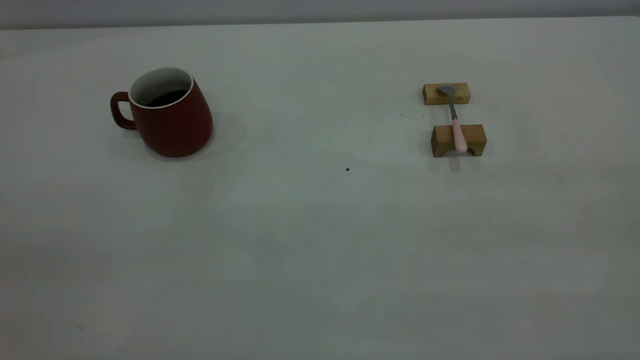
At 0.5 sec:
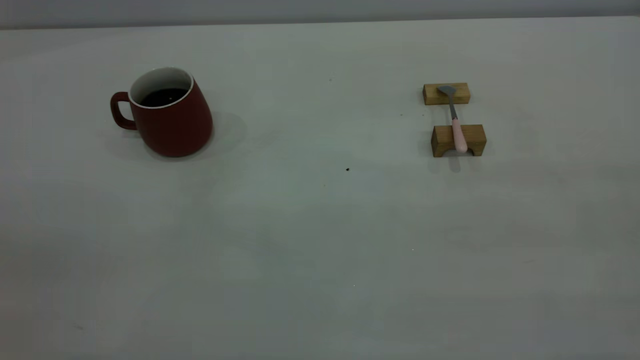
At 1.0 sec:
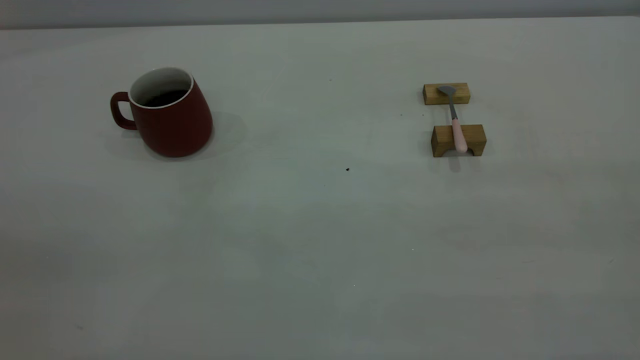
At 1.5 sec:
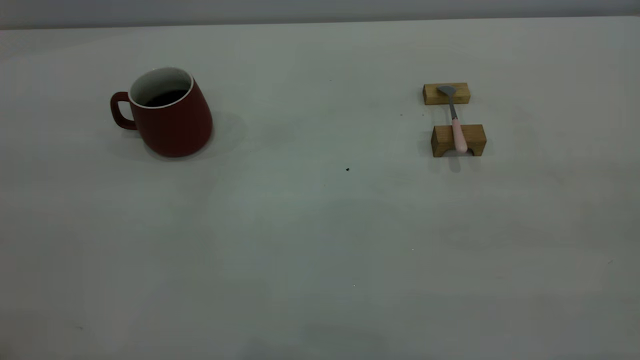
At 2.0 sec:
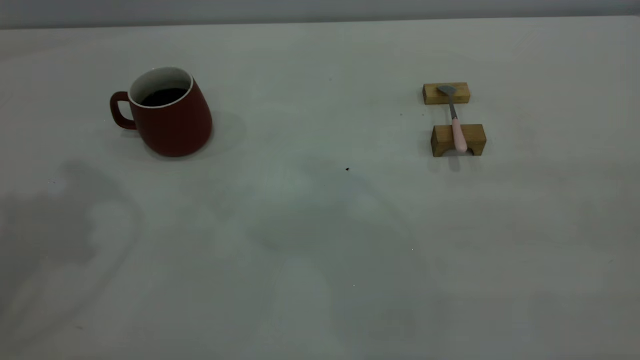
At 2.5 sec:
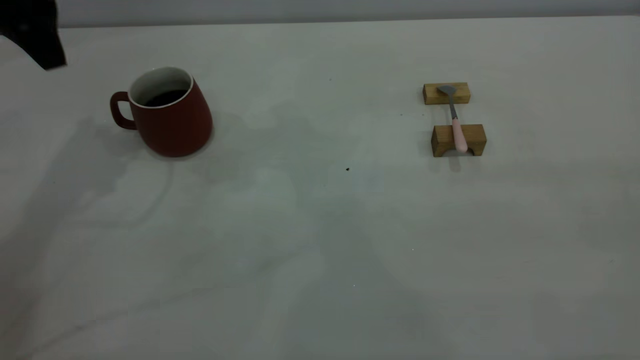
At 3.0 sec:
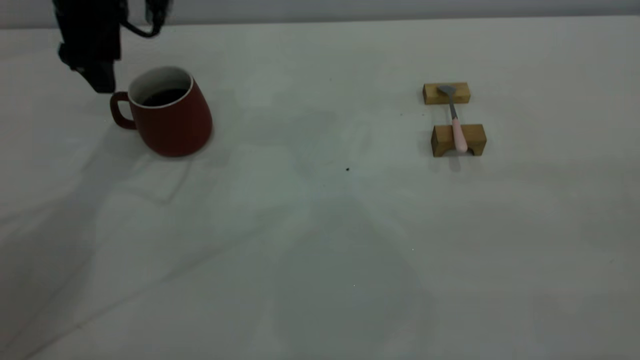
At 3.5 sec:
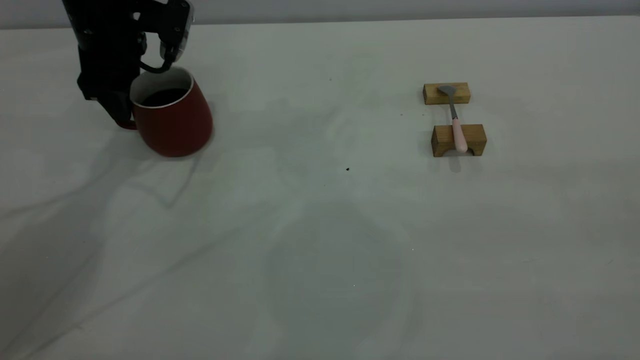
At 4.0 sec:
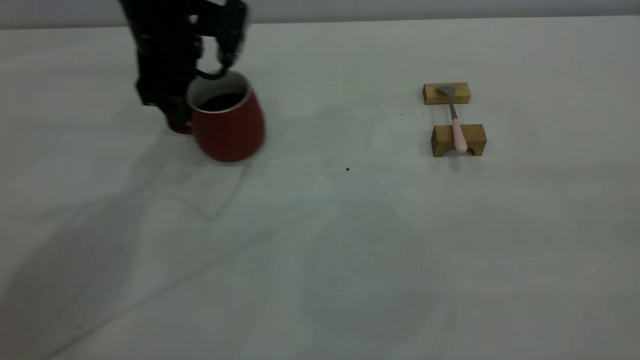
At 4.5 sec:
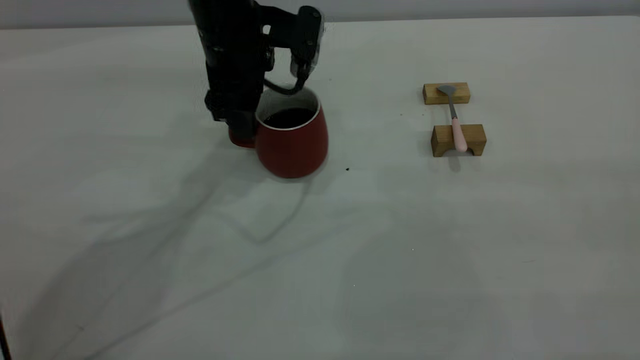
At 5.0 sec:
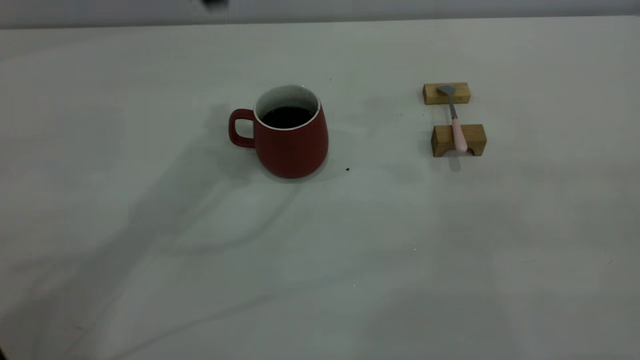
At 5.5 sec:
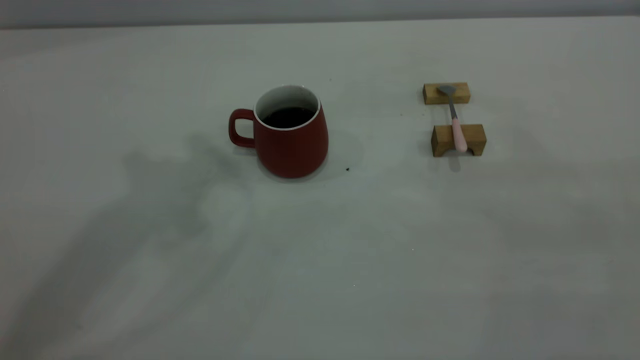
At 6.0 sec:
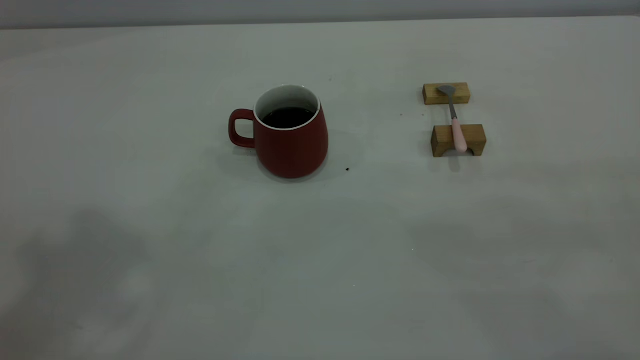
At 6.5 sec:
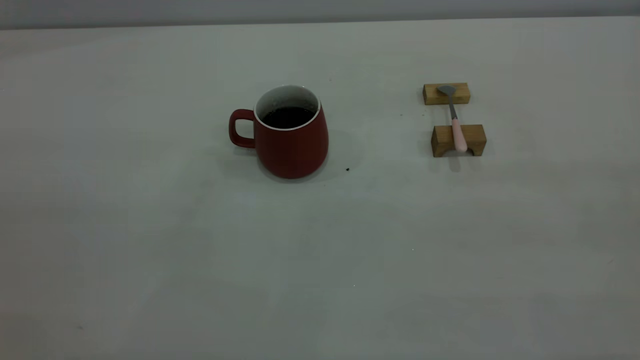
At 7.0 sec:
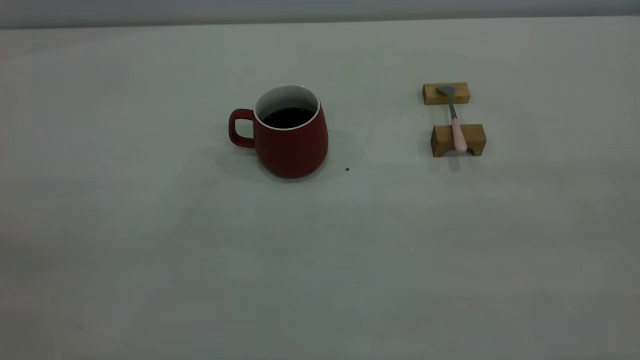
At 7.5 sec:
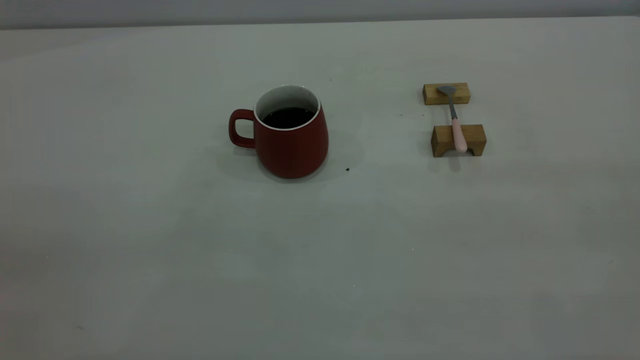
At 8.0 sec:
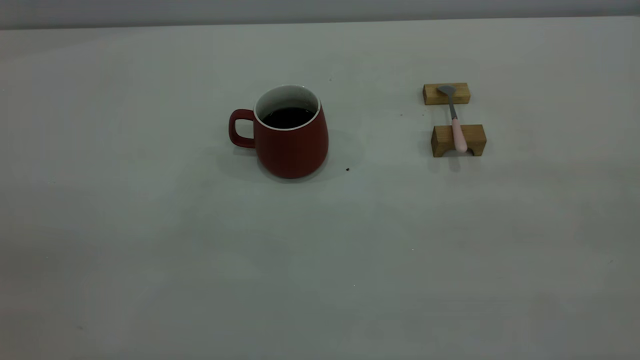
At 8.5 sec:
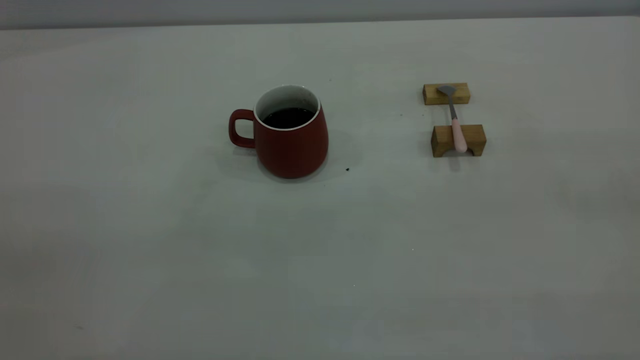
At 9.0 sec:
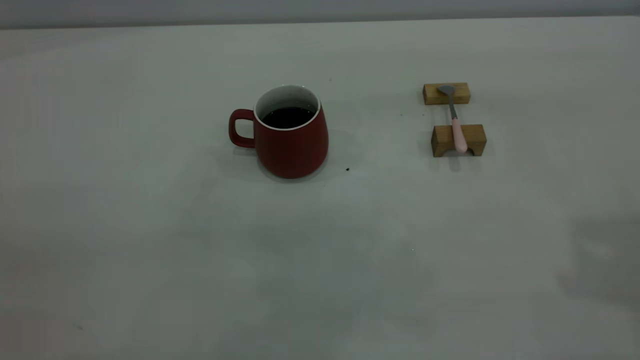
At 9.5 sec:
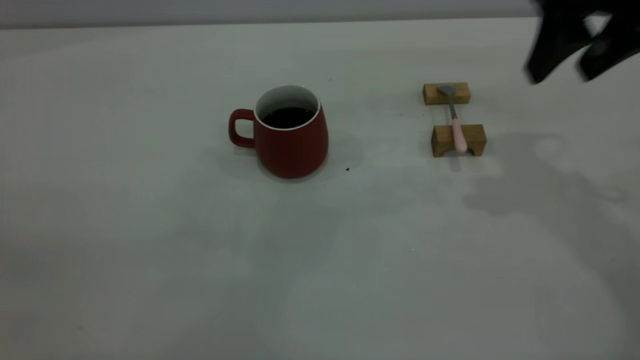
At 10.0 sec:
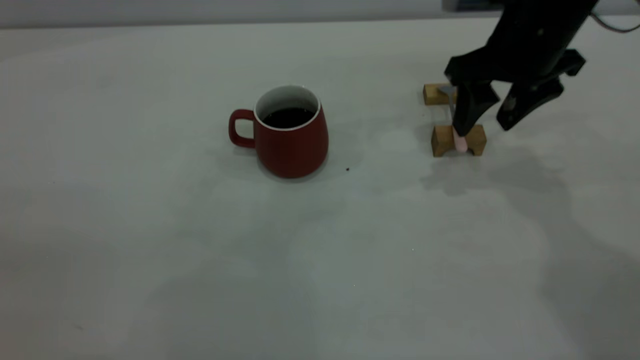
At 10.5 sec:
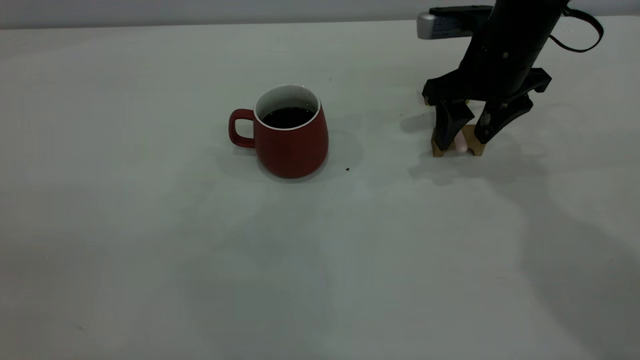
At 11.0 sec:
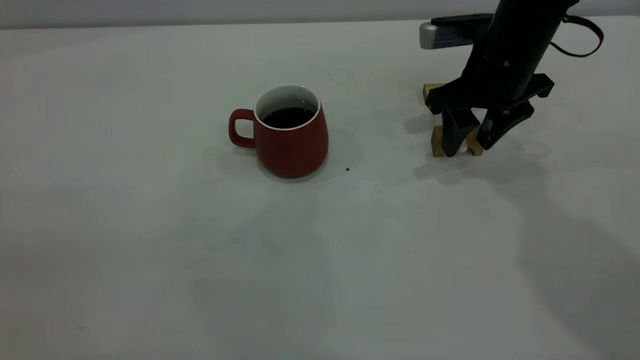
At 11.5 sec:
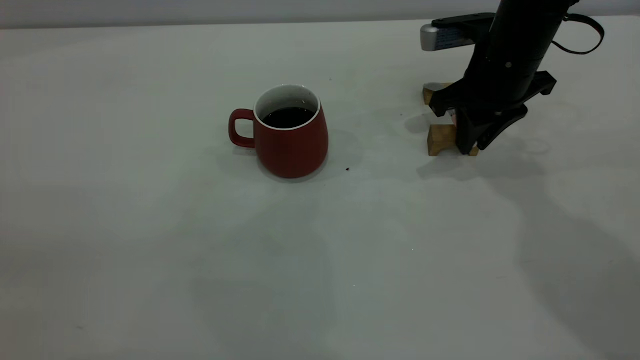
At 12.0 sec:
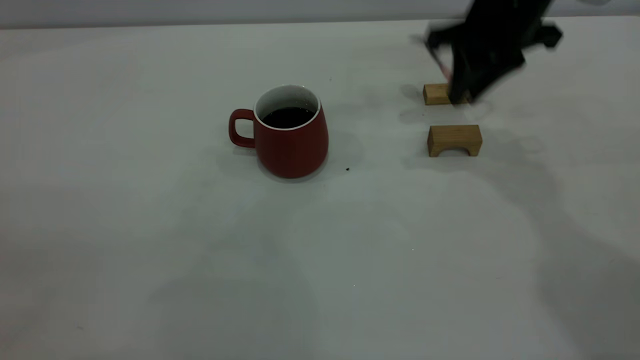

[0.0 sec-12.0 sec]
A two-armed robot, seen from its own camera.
Step, 0.0 sec to 4.5 sec: Move the cup with coffee to the center of view.
Step, 5.0 sec to 11.5 sec: Pick up the spoon.
2.0 sec to 4.0 sec: The left gripper moves downward, forward and to the right, some 30 cm.
4.0 sec to 6.0 sec: The left gripper shifts some 50 cm upward and backward, and closes.
8.0 sec to 10.0 sec: The right gripper shifts approximately 40 cm forward and downward.
10.0 sec to 12.0 sec: The right gripper moves about 5 cm, and closes its fingers.

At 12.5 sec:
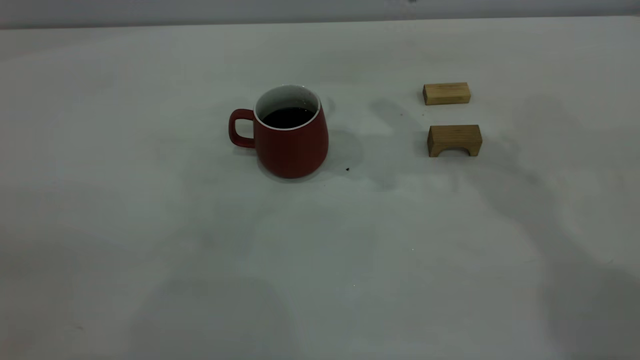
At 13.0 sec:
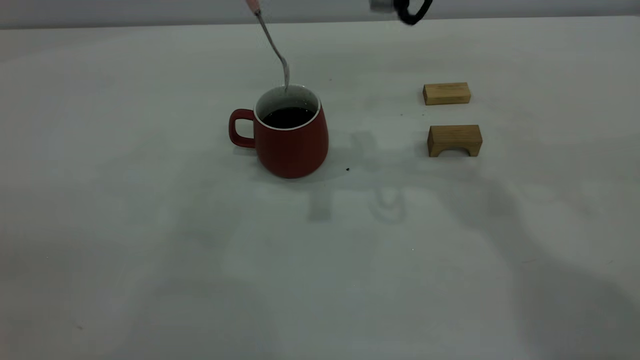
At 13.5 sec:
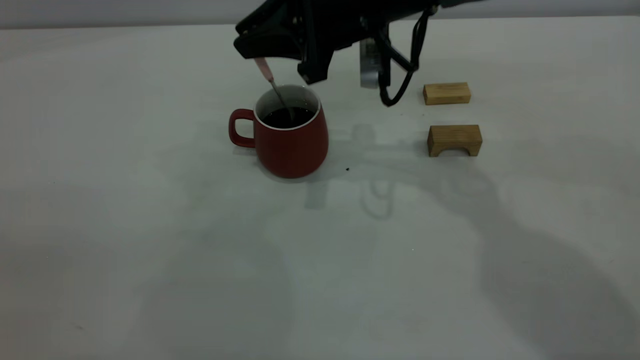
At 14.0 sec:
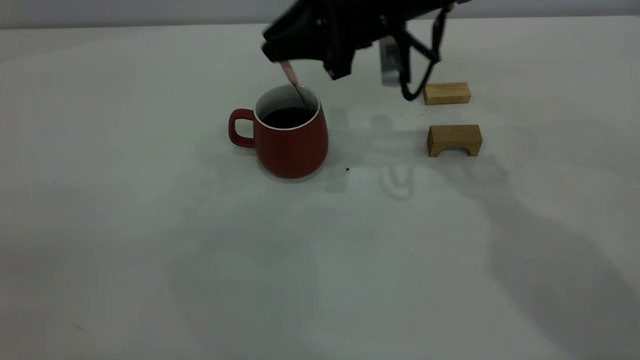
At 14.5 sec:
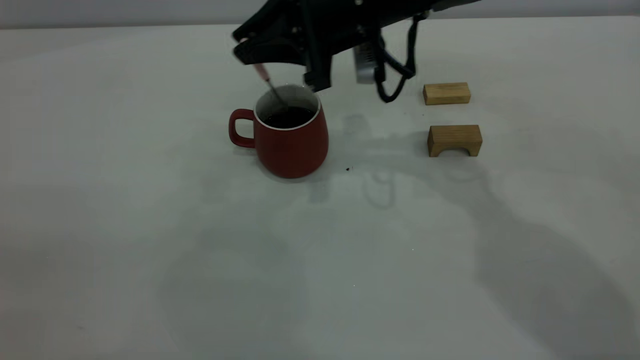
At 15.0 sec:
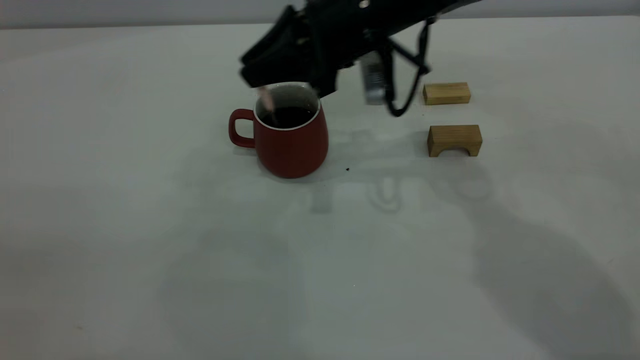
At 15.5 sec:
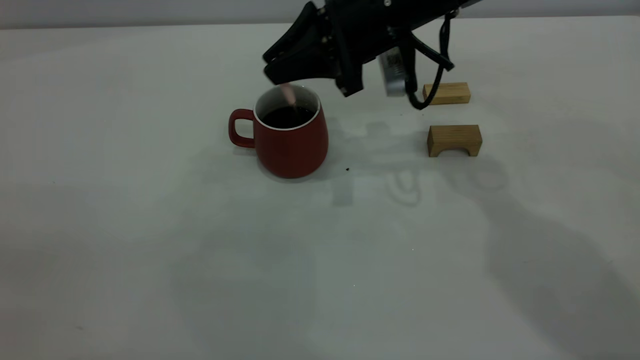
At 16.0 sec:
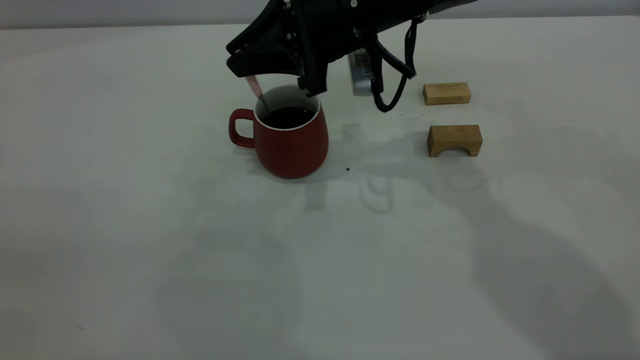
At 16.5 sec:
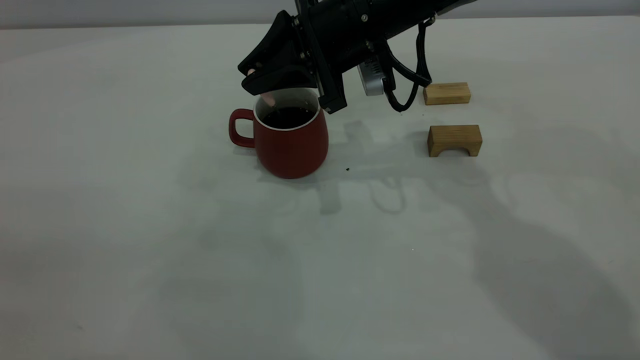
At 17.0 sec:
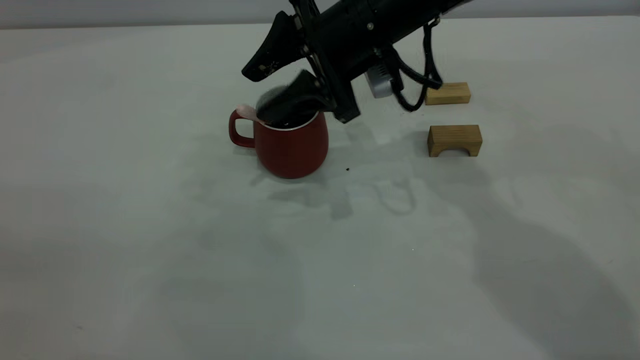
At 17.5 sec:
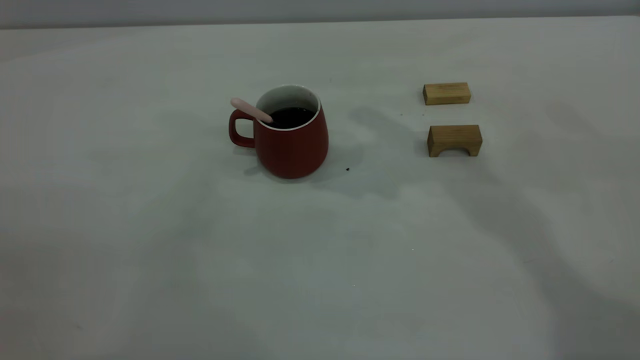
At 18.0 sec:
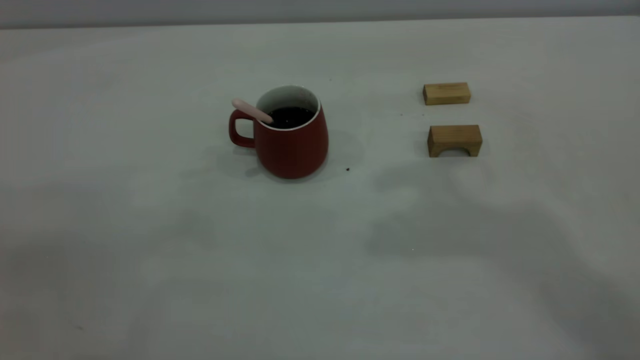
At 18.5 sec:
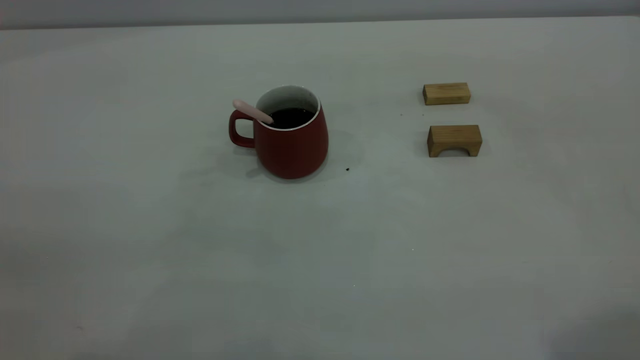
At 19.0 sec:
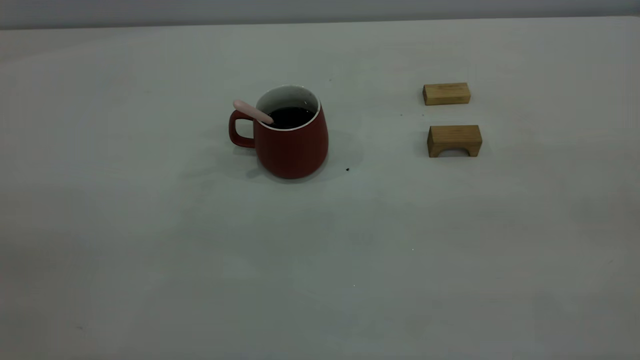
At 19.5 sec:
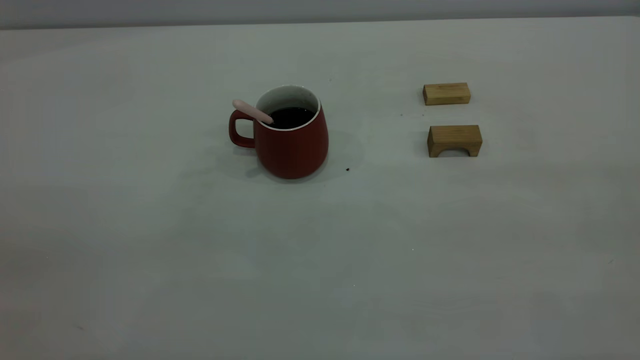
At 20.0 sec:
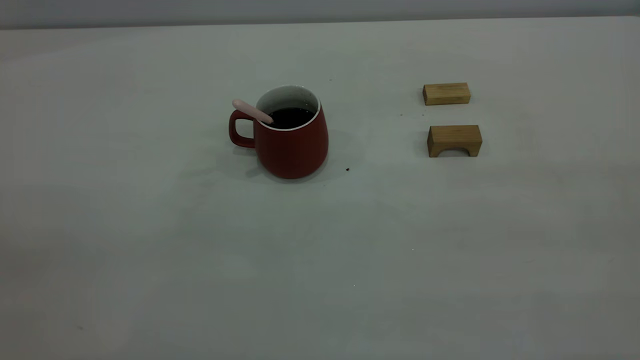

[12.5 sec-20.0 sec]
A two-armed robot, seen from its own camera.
Step, 12.5 sec to 17.0 sec: Stir the coffee in the cup.
12.5 sec to 14.5 sec: The right gripper goes roughly 10 cm downward.
14.5 sec to 16.5 sec: There are only small adjustments of the grippers.
16.5 sec to 18.0 sec: The right gripper is displaced upward and backward by about 35 cm, and opens, then closes once more.
